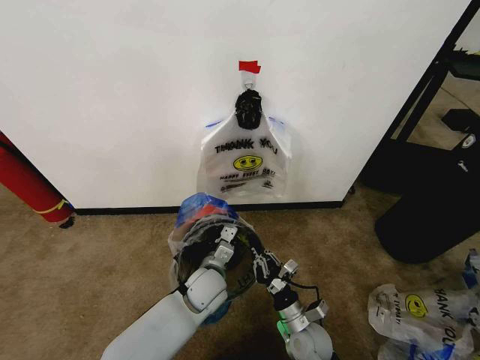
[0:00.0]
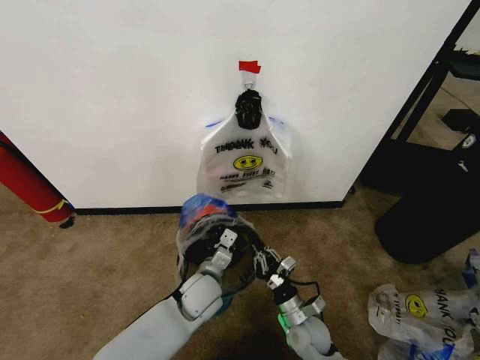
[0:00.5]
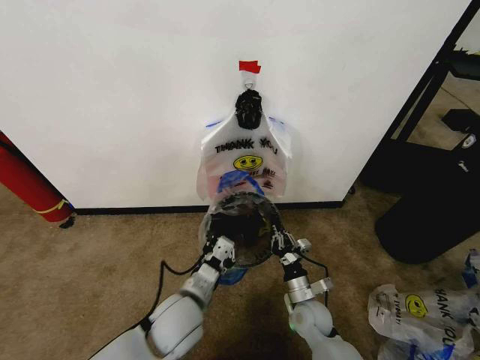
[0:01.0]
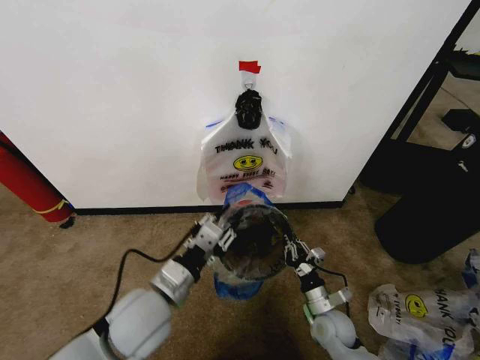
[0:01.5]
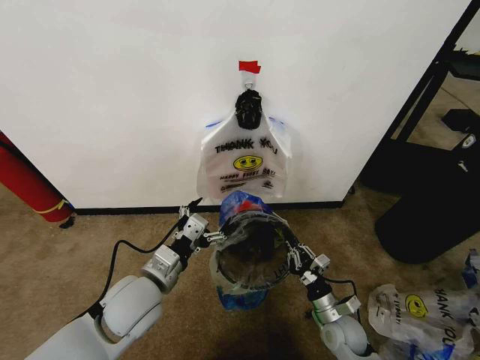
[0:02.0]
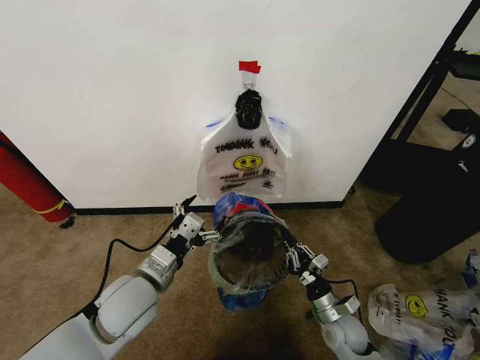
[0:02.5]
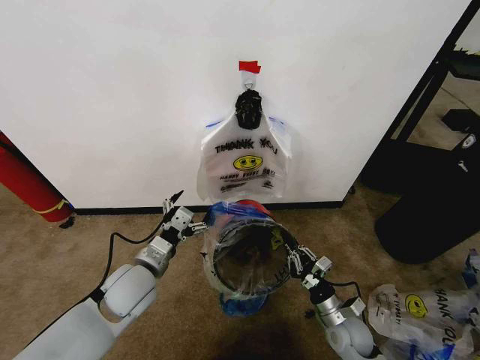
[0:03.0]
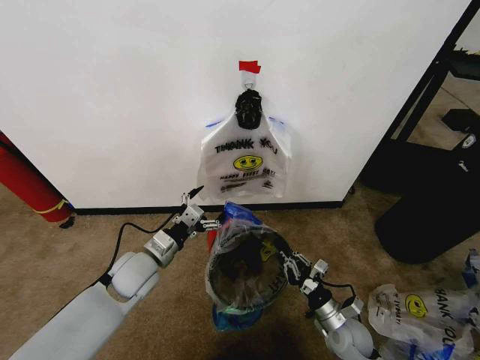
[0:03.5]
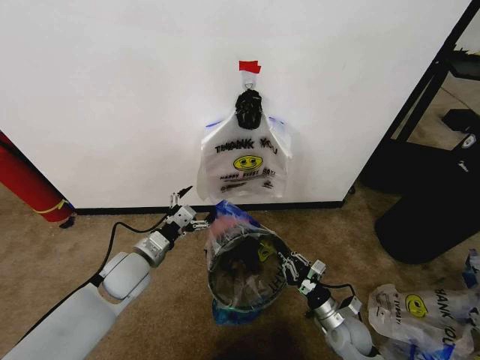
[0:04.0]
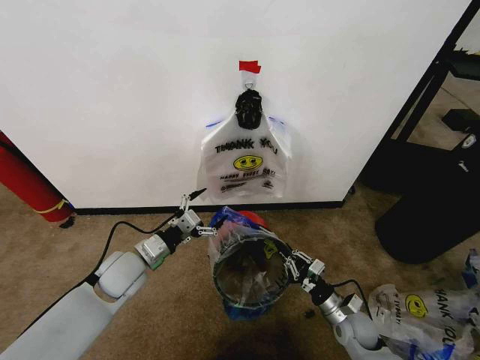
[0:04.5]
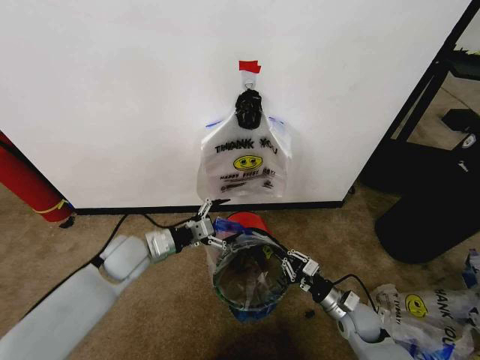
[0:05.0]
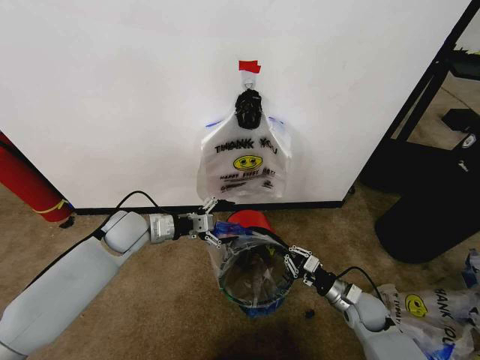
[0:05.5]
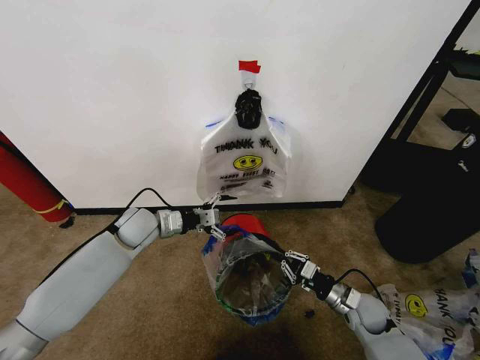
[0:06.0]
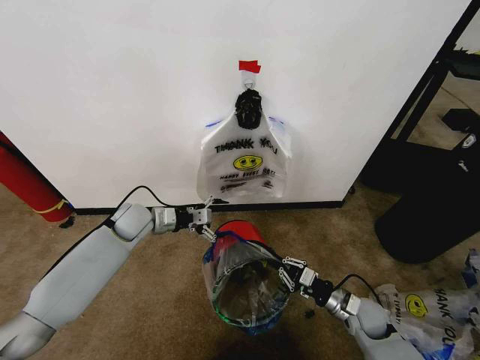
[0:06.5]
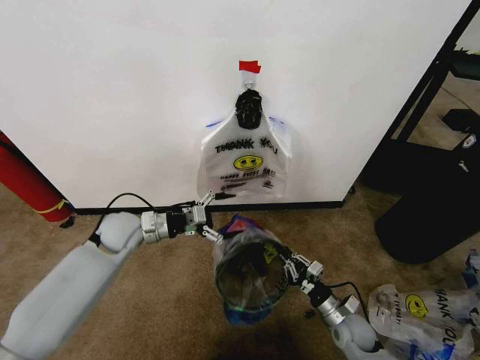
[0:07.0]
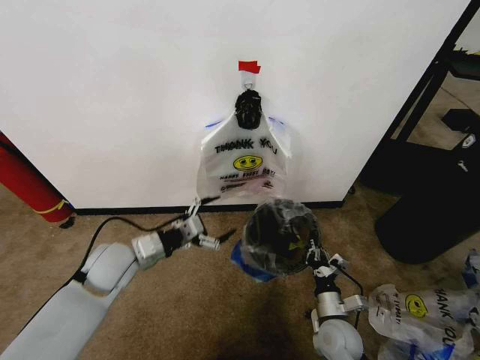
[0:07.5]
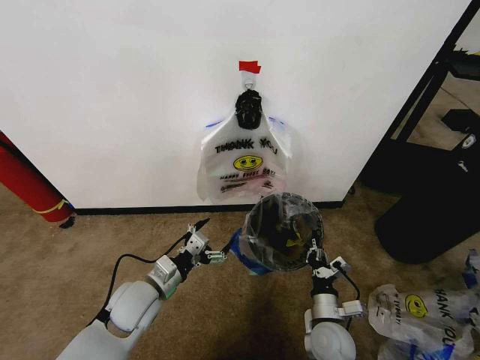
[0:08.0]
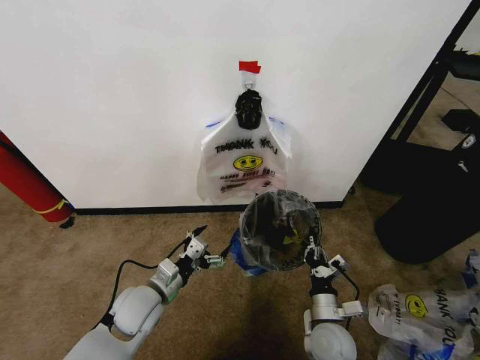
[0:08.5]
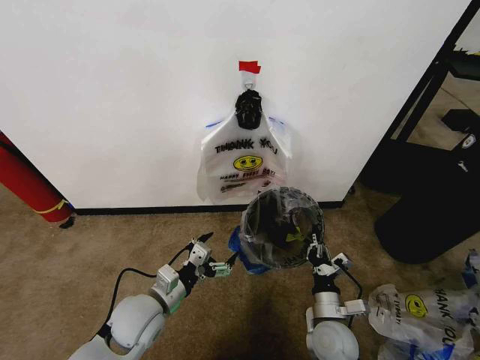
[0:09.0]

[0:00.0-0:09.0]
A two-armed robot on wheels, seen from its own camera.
Task of the whole recording: Pick up the garbage bag from the wall and place it over the trash bin.
0:00.0 to 0:02.0: The left gripper is displaced upward, to the left and backward by about 20 cm, and opens its fingers; the right gripper goes about 10 cm to the right.
0:02.0 to 0:04.5: The left gripper moves forward and to the left, about 10 cm.
0:04.5 to 0:07.0: The left gripper heads forward, covering about 10 cm.
0:07.0 to 0:09.0: The right gripper is displaced to the left and upward by roughly 10 cm, while the left gripper is displaced backward and to the right by some 20 cm.

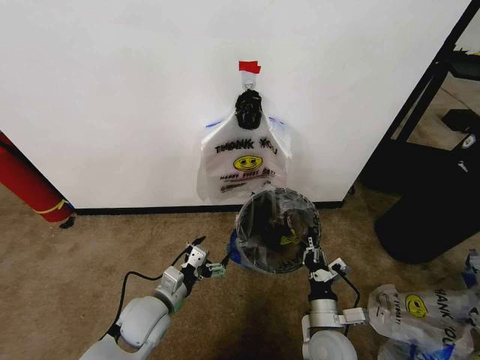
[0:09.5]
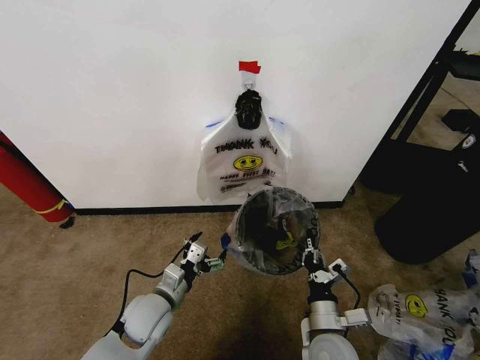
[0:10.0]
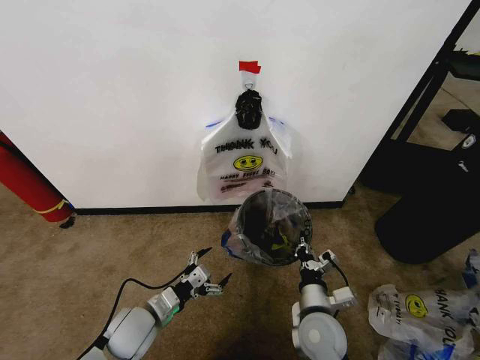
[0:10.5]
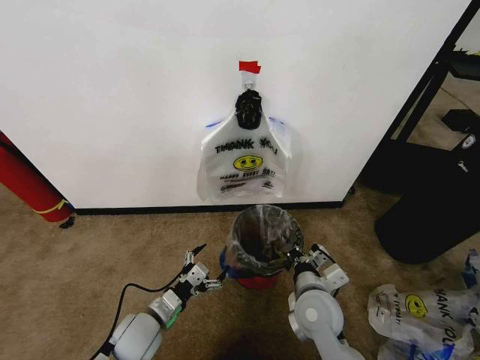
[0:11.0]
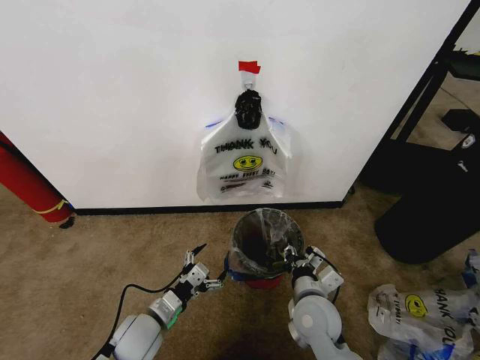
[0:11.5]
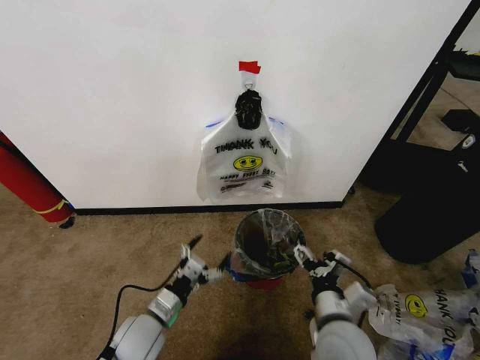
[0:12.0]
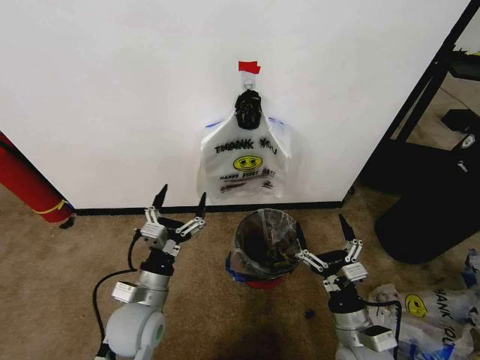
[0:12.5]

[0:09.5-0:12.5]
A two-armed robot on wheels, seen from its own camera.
Task of the whole recording: Pick up the garbage bag from the wall and place it over the trash bin.
0:09.5 to 0:11.0: The right gripper heads upward and forward, covering some 10 cm.
0:11.0 to 0:12.5: The left gripper is displaced upward by some 10 cm; the right gripper travels backward and to the right by about 10 cm, and opens its fingers.
